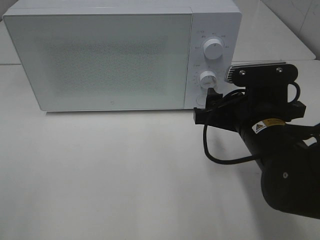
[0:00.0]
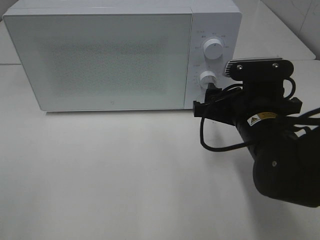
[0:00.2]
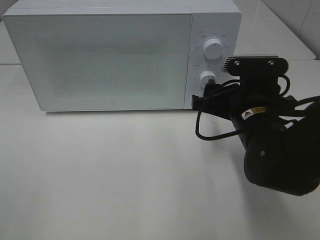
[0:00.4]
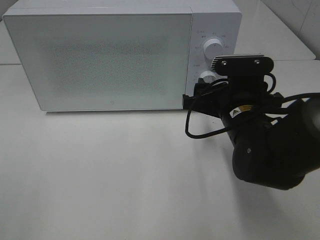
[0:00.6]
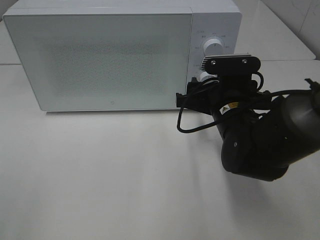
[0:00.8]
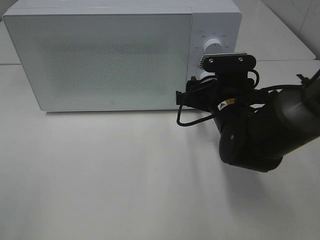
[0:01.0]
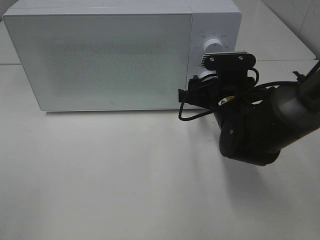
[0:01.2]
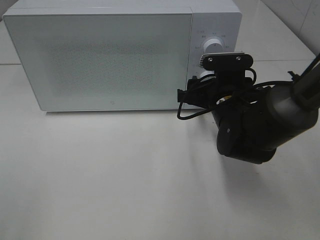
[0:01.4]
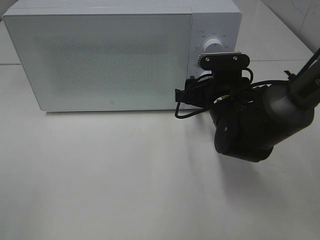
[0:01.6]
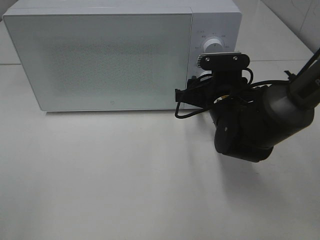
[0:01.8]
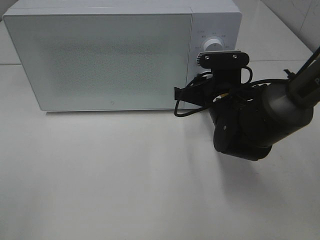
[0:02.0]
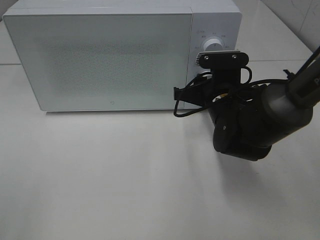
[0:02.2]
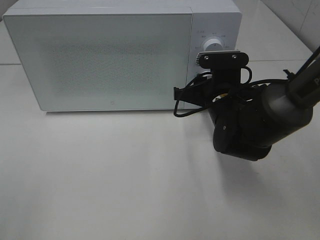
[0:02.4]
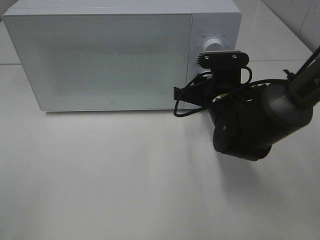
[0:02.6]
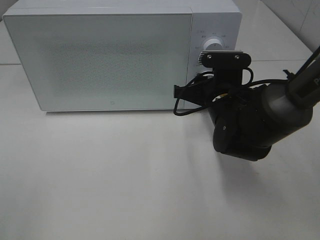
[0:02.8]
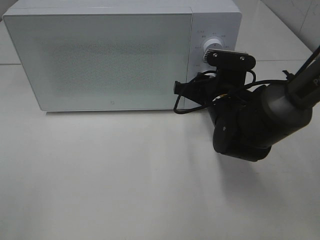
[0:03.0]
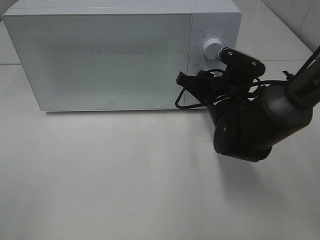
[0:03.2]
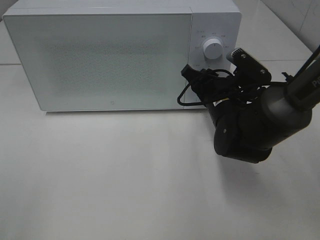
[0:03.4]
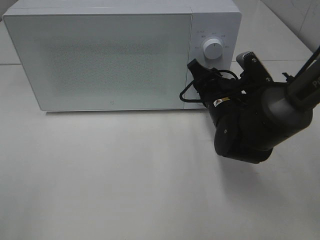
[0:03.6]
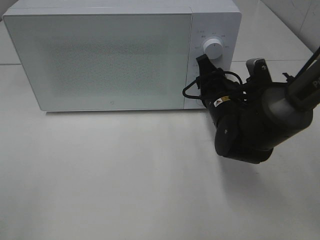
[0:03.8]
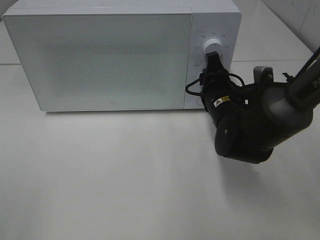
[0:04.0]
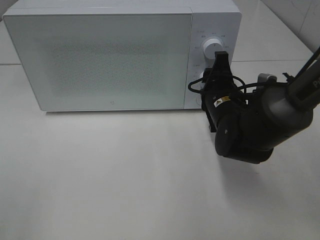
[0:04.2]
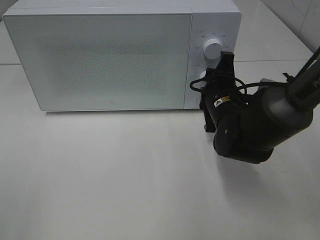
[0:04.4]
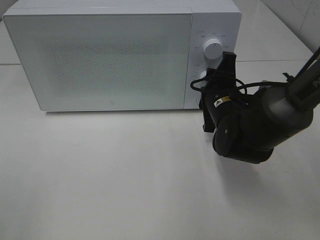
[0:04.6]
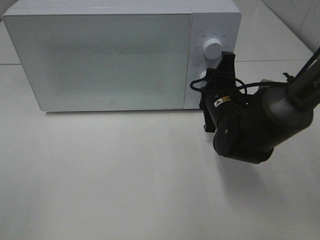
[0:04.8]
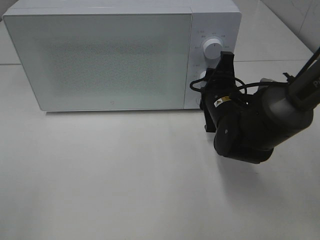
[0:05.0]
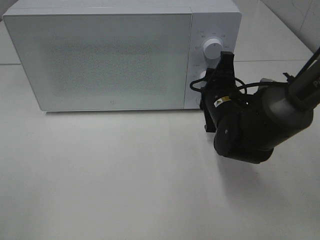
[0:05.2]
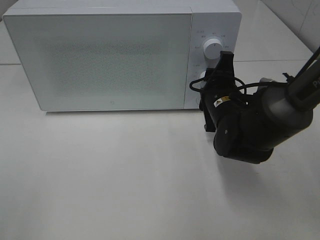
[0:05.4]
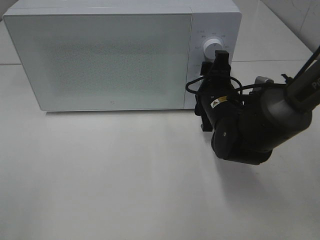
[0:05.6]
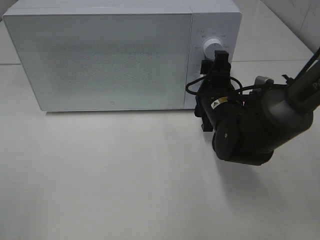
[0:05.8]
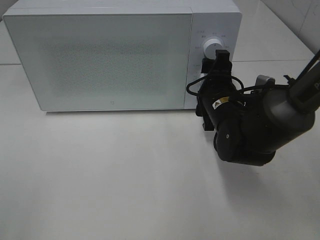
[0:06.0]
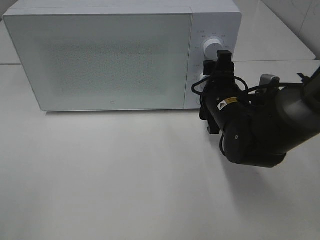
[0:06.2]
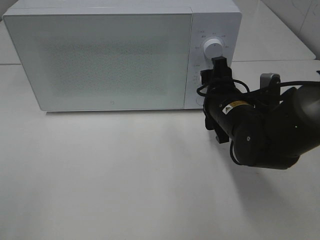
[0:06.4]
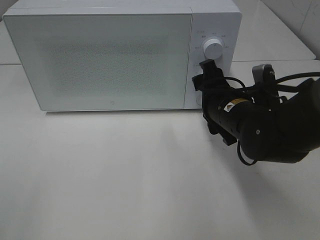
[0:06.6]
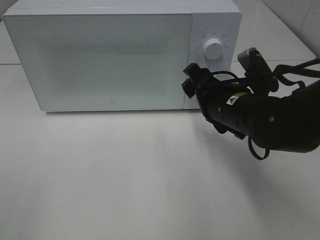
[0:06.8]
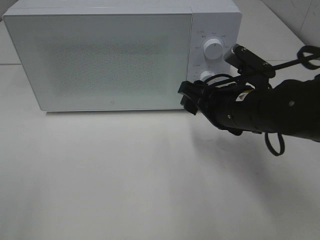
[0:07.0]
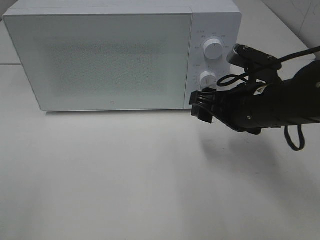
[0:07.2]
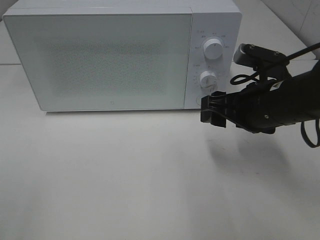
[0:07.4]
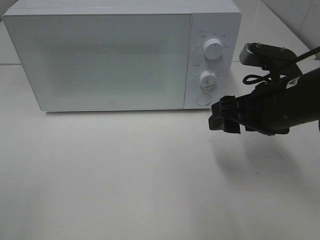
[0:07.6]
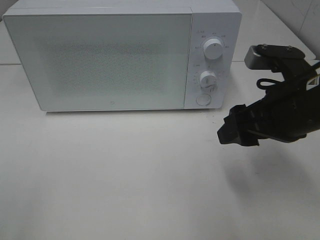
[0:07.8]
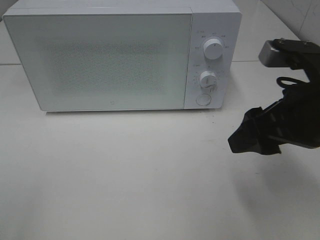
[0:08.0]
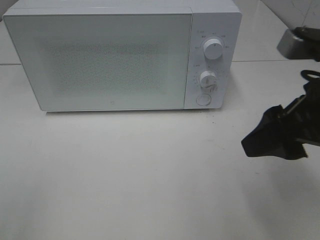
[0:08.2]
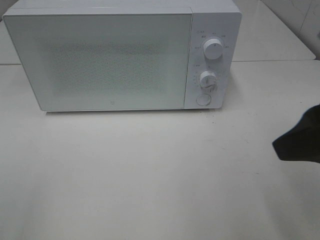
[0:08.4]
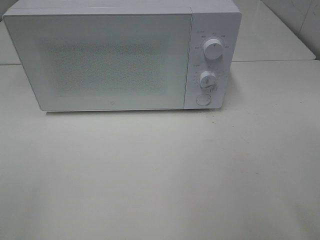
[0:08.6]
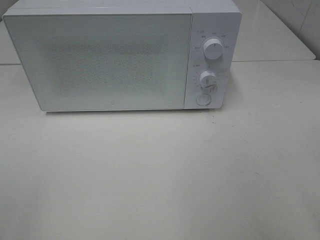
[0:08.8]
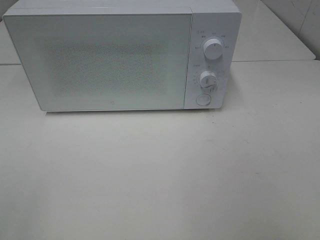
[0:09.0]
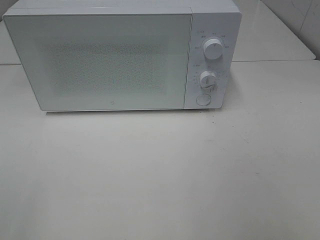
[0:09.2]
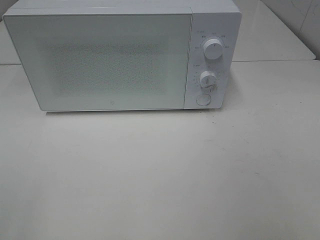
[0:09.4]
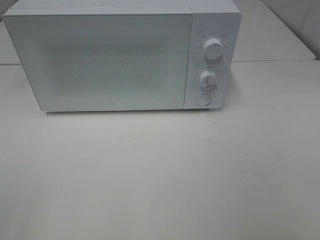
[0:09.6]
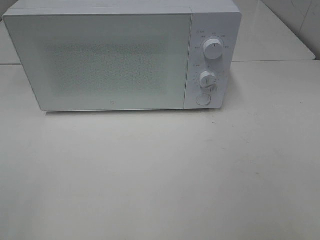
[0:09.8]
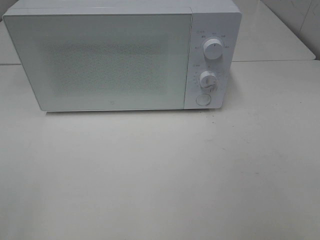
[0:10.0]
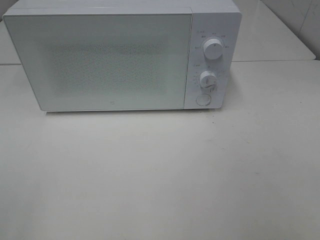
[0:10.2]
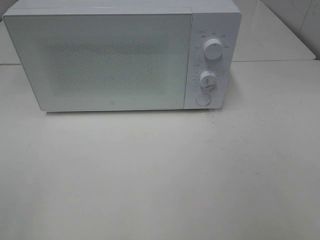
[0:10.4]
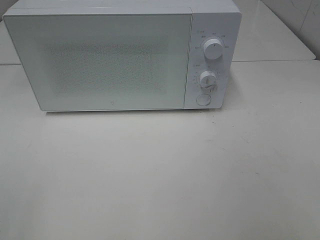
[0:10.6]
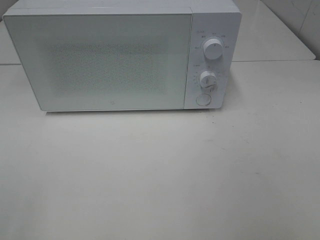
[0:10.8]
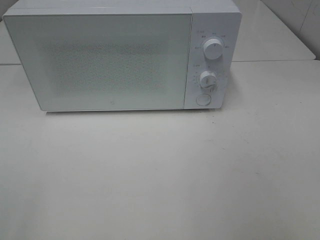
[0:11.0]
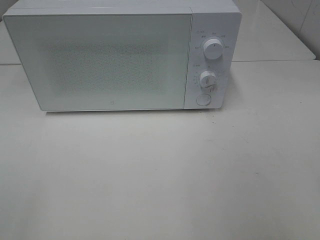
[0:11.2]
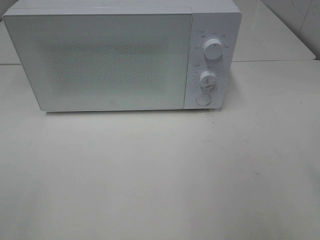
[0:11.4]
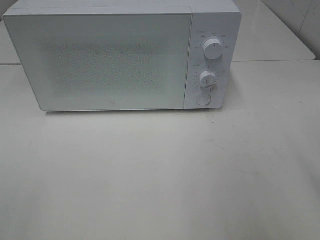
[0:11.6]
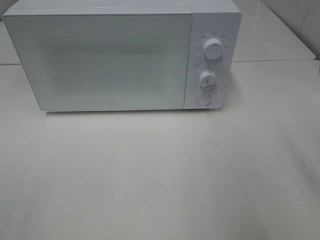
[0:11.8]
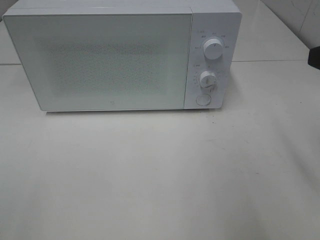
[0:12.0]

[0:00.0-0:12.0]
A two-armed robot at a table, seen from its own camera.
Task of the whole recording: Heat Sandwich.
Step, 0:00.0 to 0:06.0: Right hand: twist timer button.
0:00.0 to 0:01.6: The right gripper shifts roughly 10 cm forward.
0:01.6 to 0:03.0: The right gripper closes its fingers.
0:04.4 to 0:06.0: The grippers stay close to where they were, moving slightly.
0:06.0 to 0:07.6: The right gripper moves upward, backward and to the right, approximately 10 cm.
0:07.6 to 0:09.0: The right gripper travels backward, upward and to the right by some 25 cm.

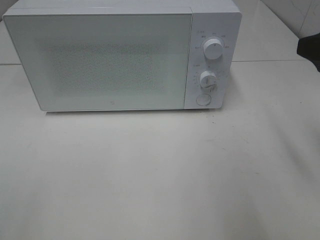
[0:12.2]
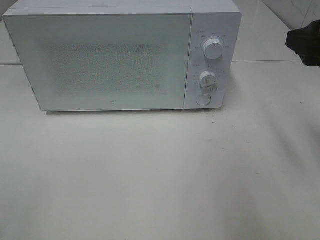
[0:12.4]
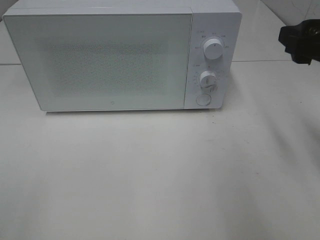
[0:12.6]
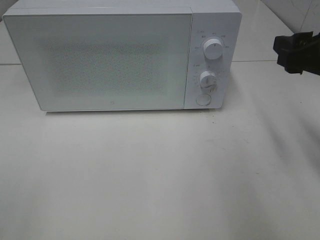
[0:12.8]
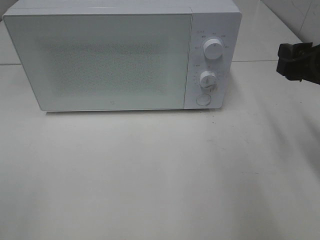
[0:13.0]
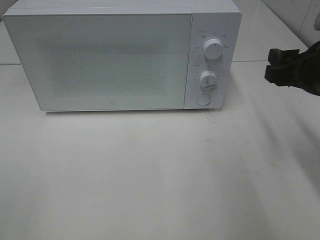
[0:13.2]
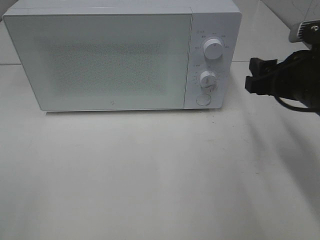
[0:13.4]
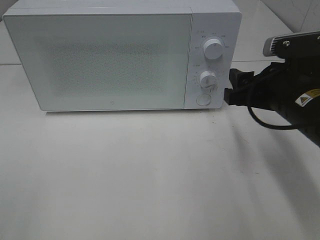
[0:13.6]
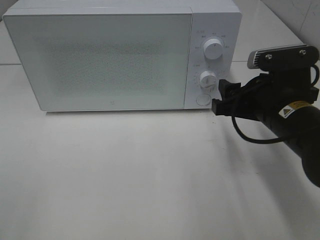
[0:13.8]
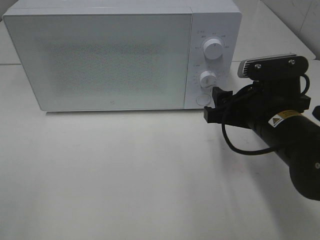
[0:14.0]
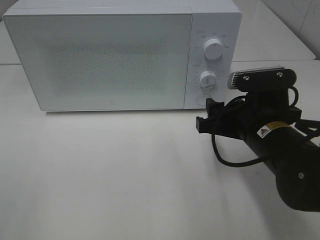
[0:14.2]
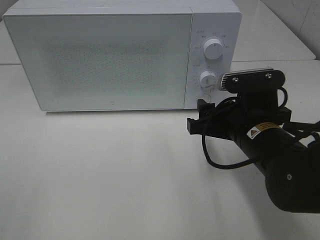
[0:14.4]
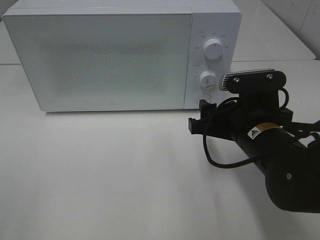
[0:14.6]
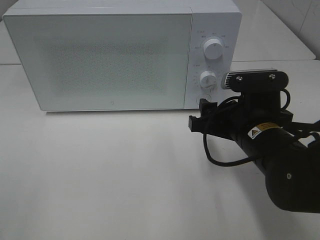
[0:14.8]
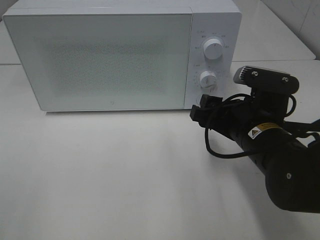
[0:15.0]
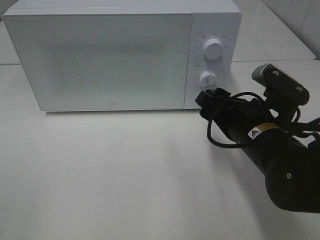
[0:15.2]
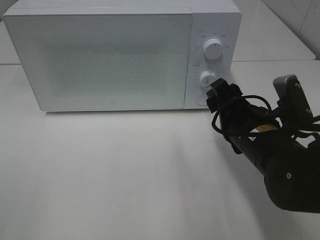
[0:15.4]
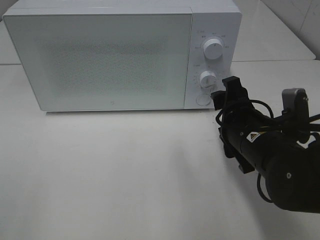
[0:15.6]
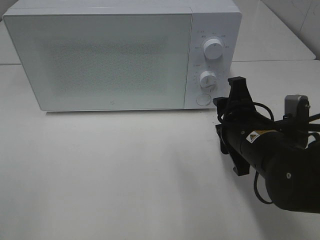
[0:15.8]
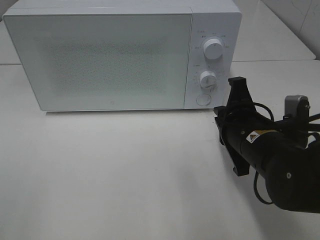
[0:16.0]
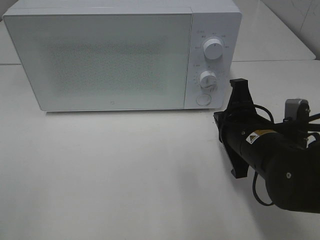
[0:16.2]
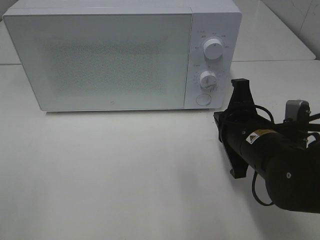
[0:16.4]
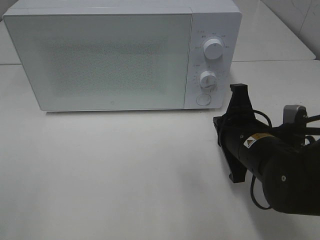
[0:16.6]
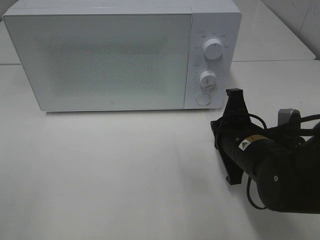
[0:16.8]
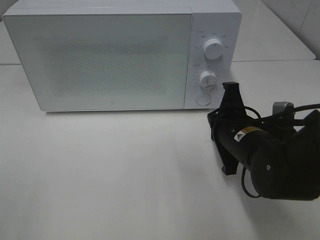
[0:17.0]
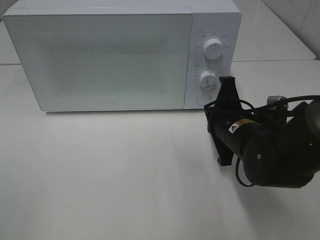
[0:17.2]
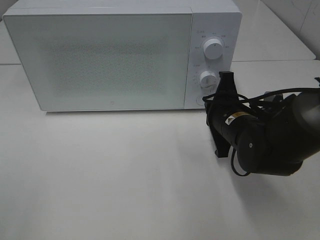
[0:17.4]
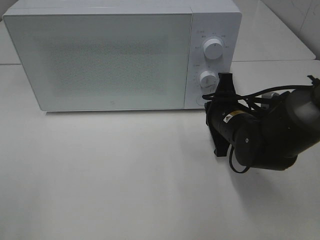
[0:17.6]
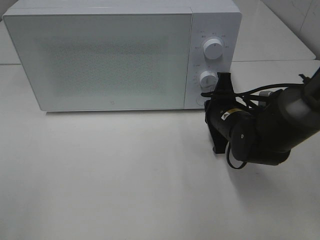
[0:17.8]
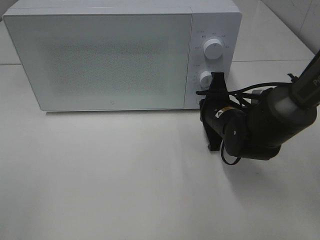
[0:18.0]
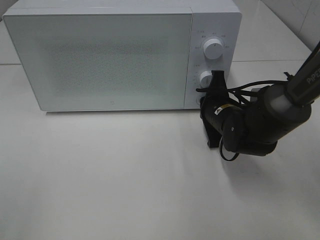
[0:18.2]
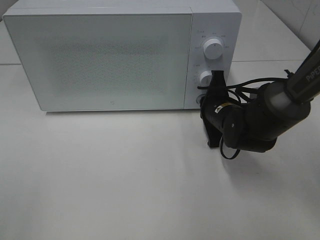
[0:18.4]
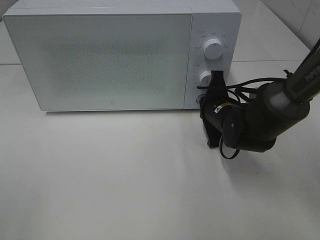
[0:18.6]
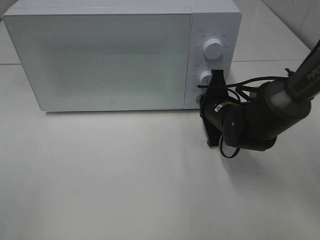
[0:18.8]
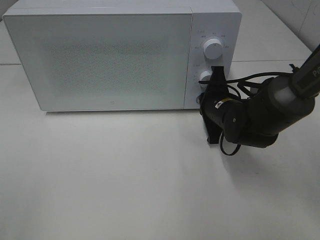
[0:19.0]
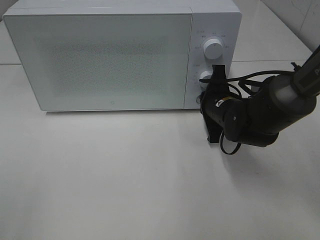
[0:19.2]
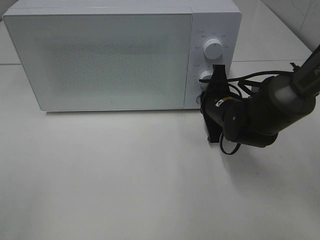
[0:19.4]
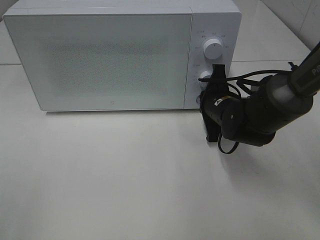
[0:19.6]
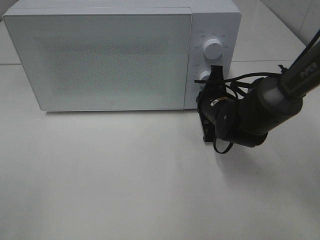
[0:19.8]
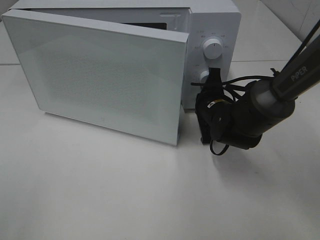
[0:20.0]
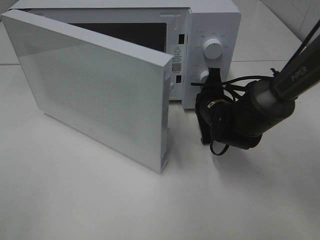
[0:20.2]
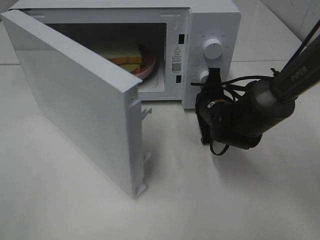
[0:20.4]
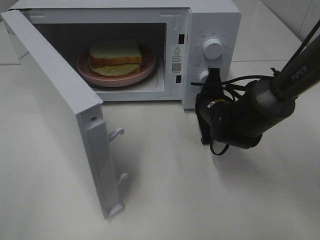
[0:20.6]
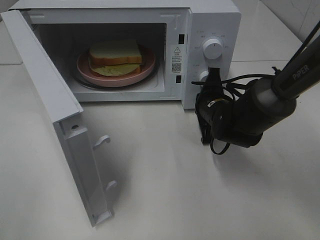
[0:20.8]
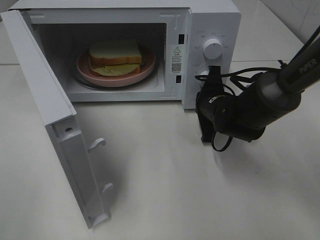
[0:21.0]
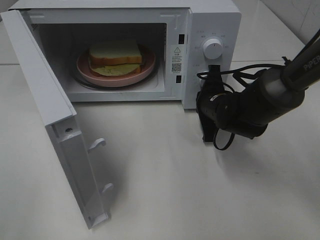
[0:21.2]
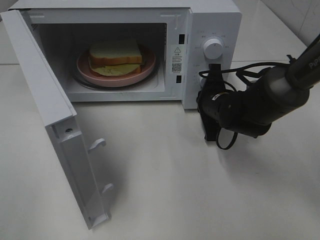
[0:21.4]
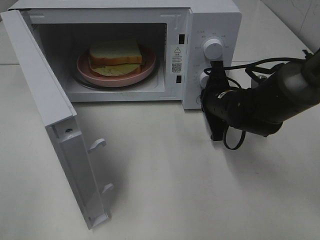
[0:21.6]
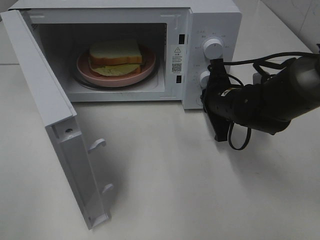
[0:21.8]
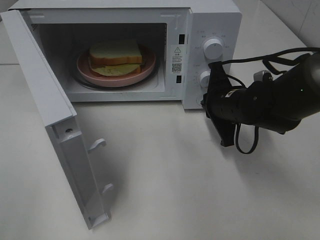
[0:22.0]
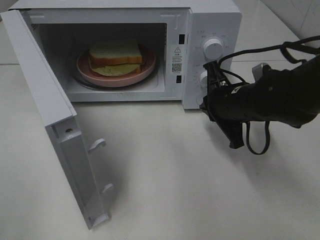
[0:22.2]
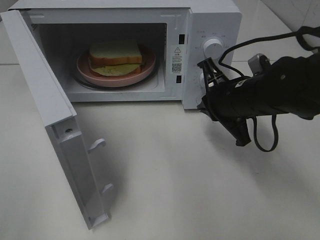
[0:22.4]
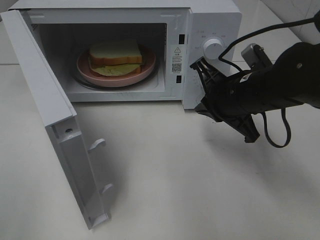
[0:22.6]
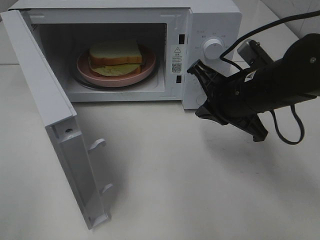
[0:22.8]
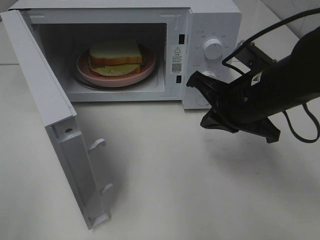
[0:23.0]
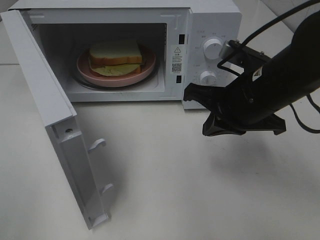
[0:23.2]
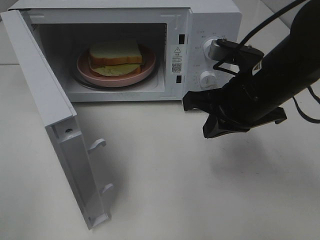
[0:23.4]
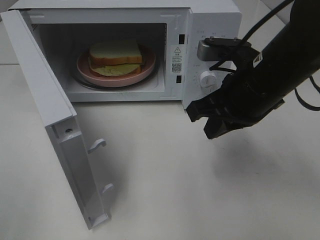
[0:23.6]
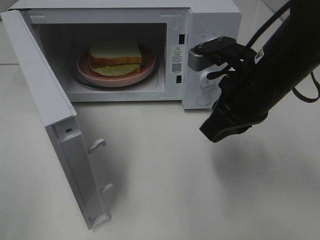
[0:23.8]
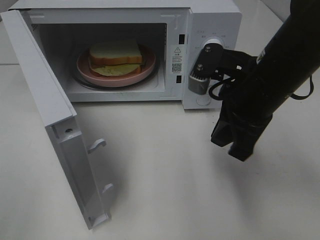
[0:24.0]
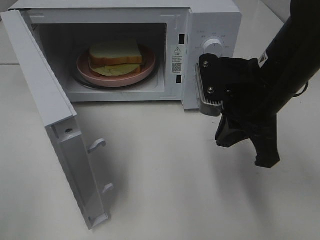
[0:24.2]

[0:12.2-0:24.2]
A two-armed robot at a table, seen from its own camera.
Task of the whole recording: Heat Sandwich.
Step, 0:12.2 to 0:21.8: Right hand: press the switch.
0:12.2 to 0:13.8: The right gripper goes roughly 15 cm downward and to the left.
0:15.2 to 0:16.6: The right gripper closes.
0:16.6 to 0:18.2: The right gripper travels forward by roughly 10 cm.
0:18.2 to 0:19.8: The grippers move only a little.
0:21.2 to 0:22.6: The right gripper is displaced upward and backward by approximately 10 cm.
0:22.6 to 0:24.2: The right gripper changes place by roughly 5 cm.
